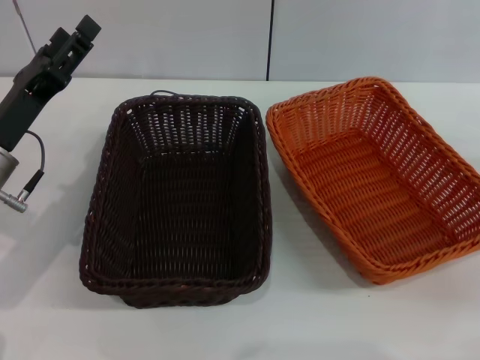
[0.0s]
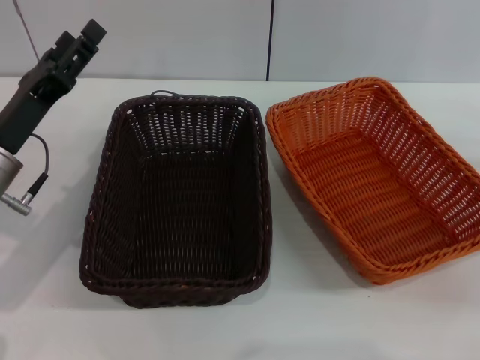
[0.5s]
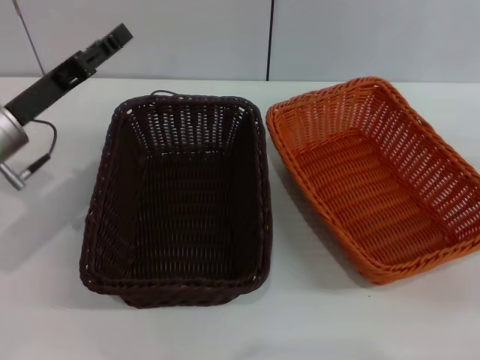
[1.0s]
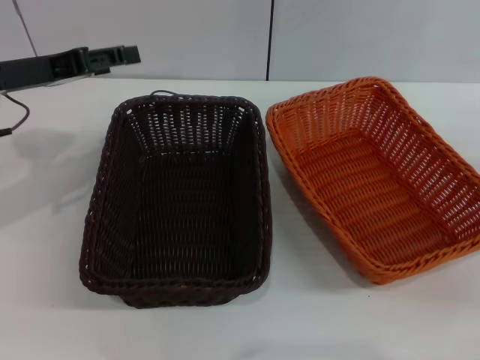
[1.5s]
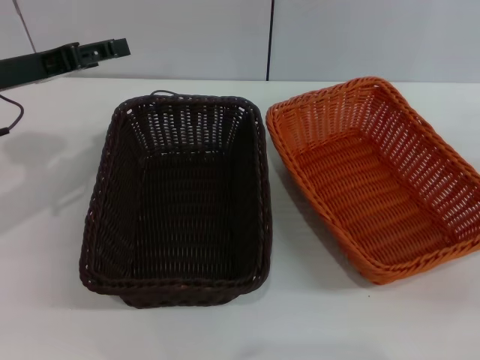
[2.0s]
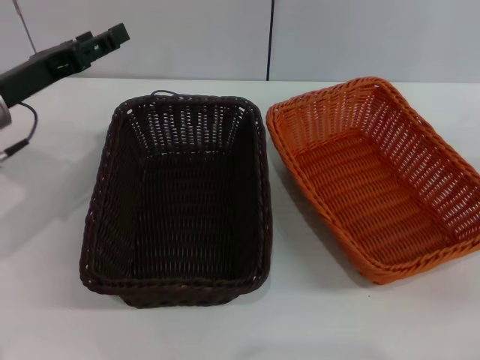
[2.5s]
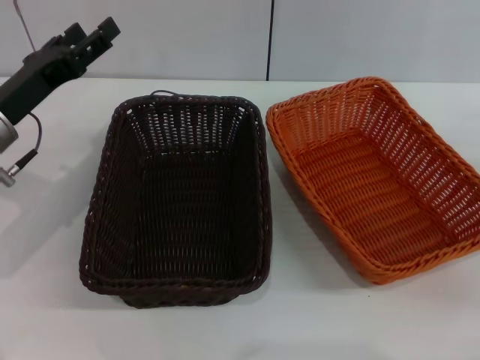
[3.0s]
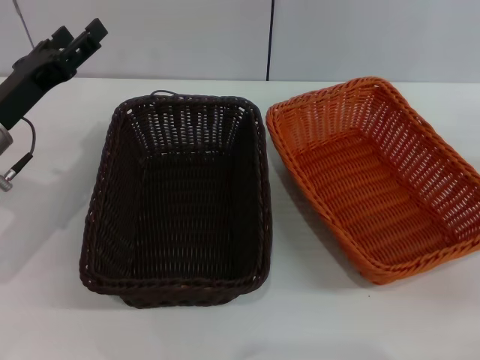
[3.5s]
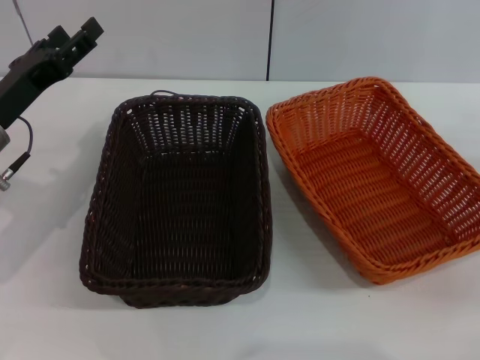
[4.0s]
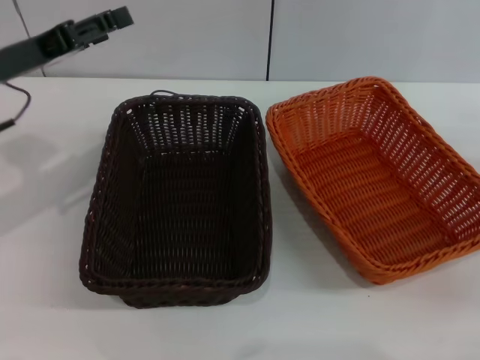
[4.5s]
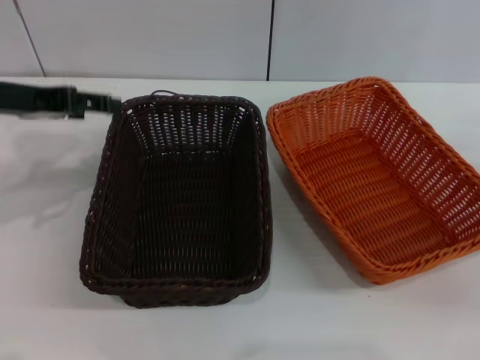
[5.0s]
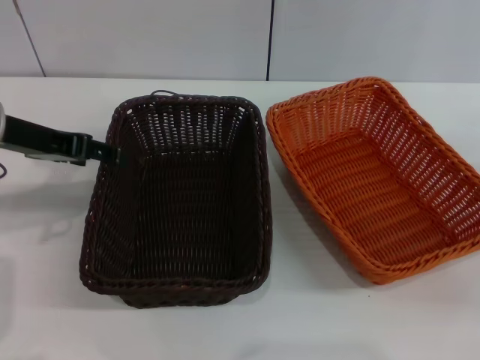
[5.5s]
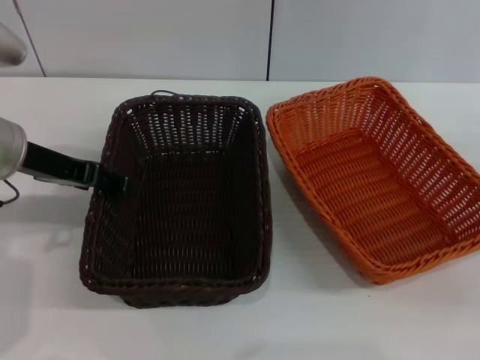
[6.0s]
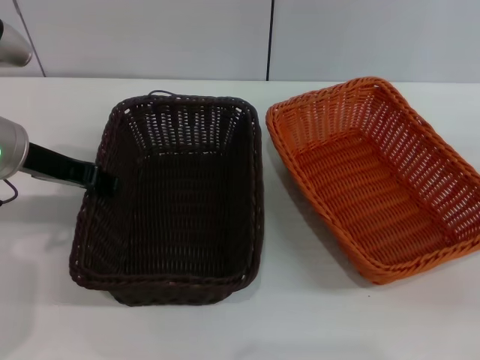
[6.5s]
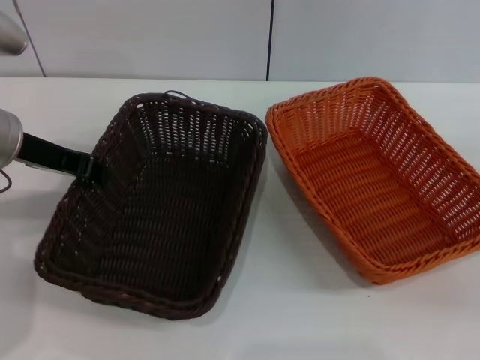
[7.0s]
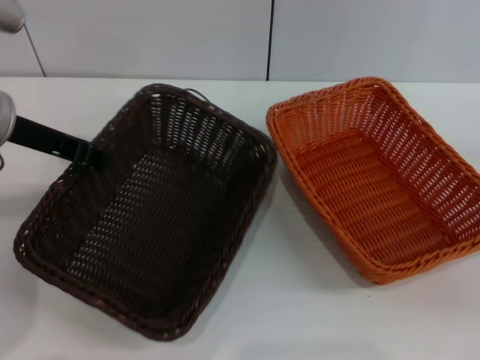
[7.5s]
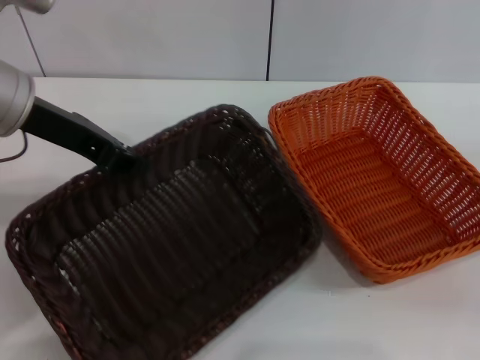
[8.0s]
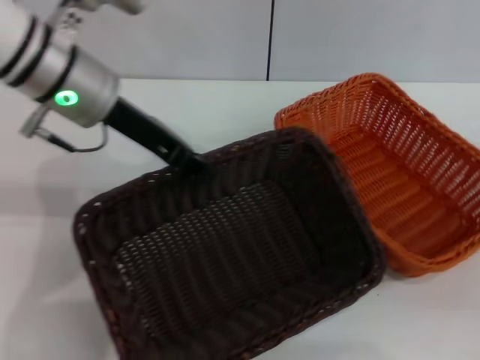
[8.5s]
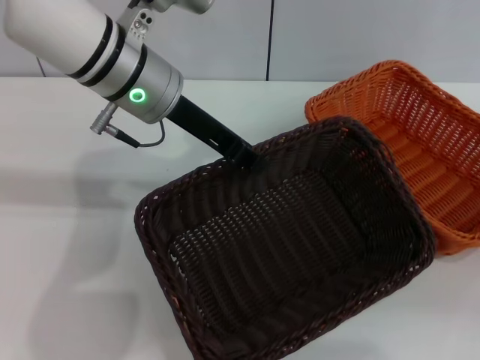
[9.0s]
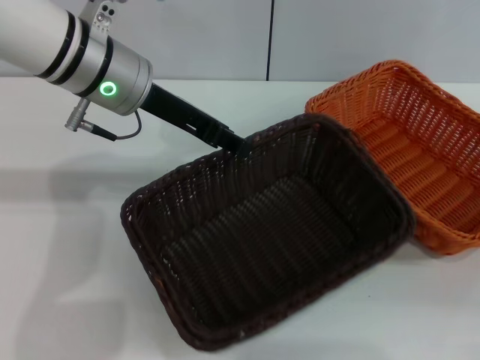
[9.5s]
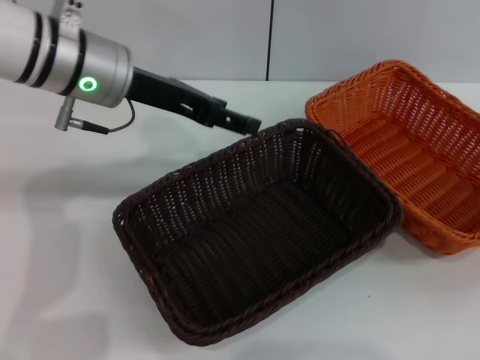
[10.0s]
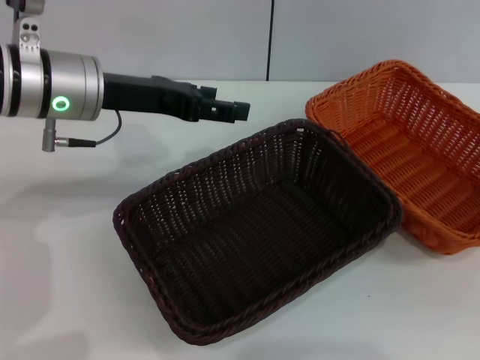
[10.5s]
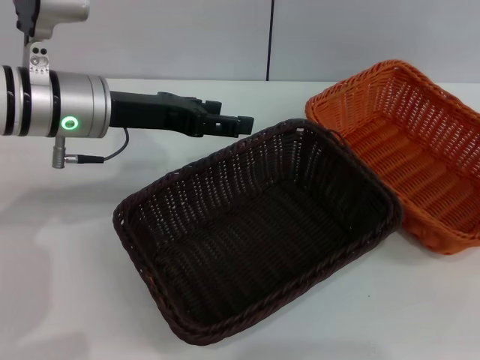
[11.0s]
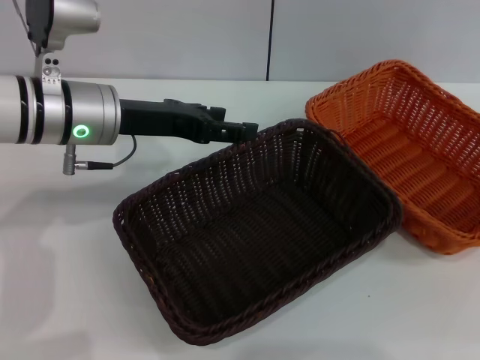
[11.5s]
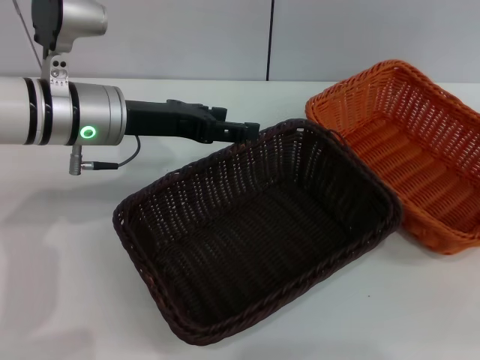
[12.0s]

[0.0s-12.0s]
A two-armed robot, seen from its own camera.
Step, 0.0s to 7.0s: Pick up the dark basket with the left gripper.
Step, 7.5s to 9.5s: Place the dark basket in the center of view with the left gripper.
0.0s to 2.0s: The left gripper moves upward and forward, approximately 10 cm.
2.0s to 4.0s: The left gripper heads downward, covering some 5 cm.
4.0s to 6.0s: The left gripper travels upward by some 5 cm.
6.0s to 8.0s: The left gripper moves upward, about 5 cm, and closes its fingers.
8.0s to 10.0s: The left gripper shifts approximately 5 cm to the right, and opens.
10.0s to 12.0s: The left gripper heads downward, covering some 5 cm, while the right gripper is displaced upward by approximately 10 cm.

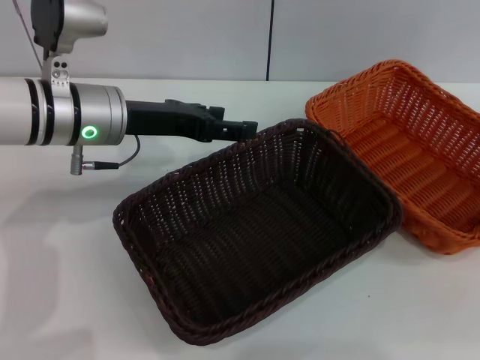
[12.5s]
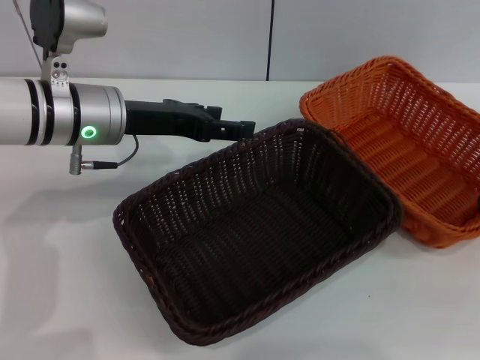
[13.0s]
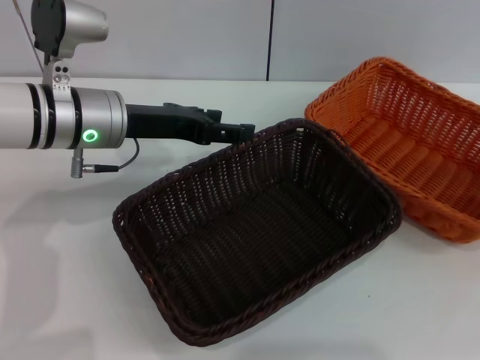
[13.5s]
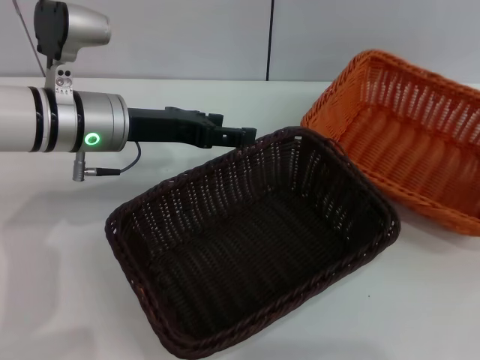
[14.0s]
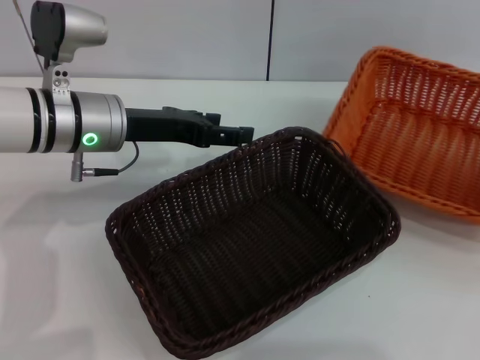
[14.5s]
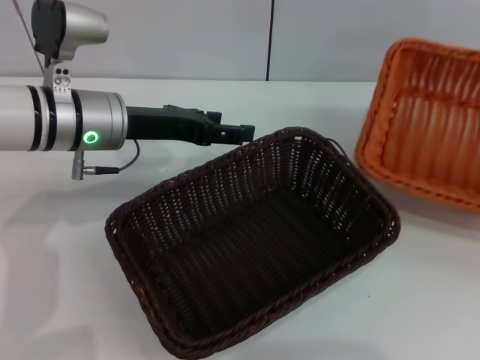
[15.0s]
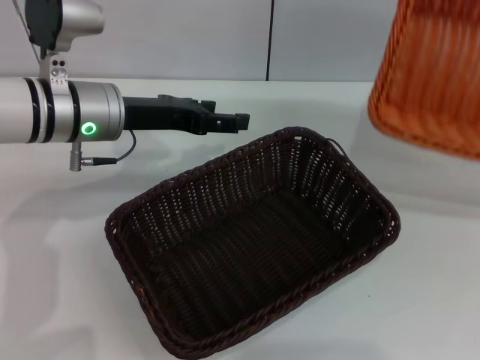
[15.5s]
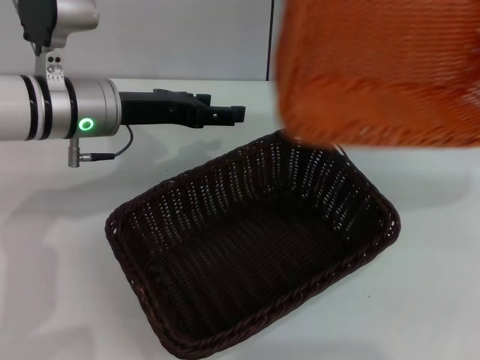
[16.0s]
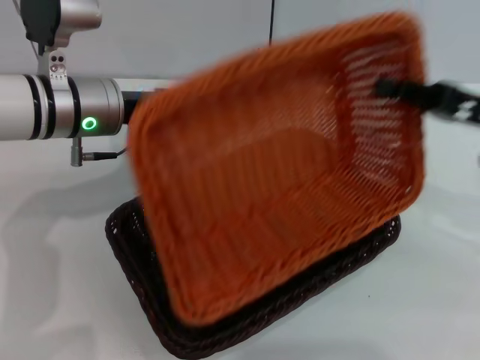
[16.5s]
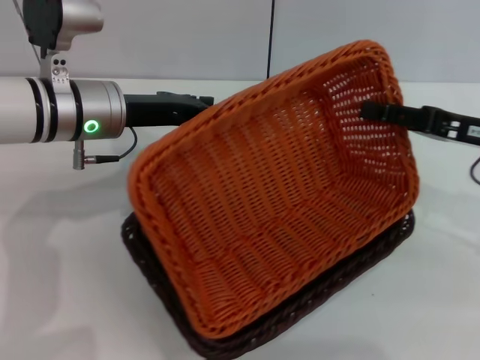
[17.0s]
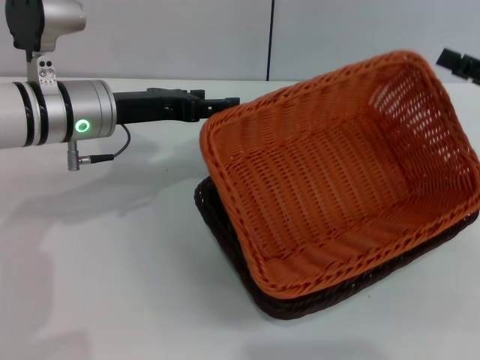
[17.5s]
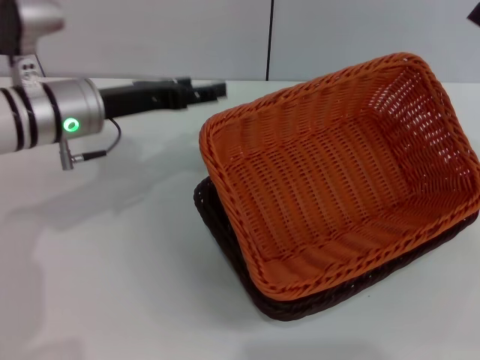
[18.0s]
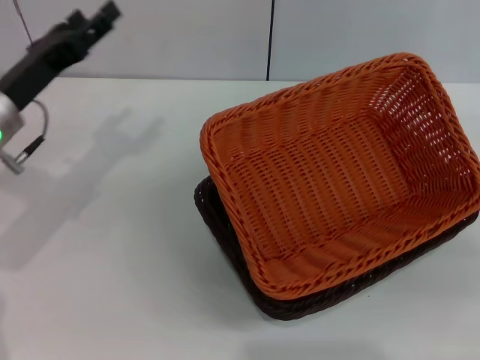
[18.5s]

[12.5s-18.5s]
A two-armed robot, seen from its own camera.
Step, 12.5s to 14.5s: Pick up the light basket with the right gripper.
Step, 15.0s to 17.0s: Place the light basket on the dark basket with the right gripper.
12.5s to 14.5s: The right gripper closes its fingers.
14.5s to 16.5s: The right gripper heads to the left, covering roughly 15 cm.
16.5s to 18.5s: The left gripper goes some 10 cm to the left. The right gripper goes roughly 10 cm to the right, and opens.
